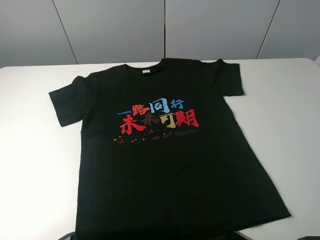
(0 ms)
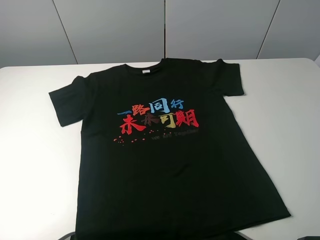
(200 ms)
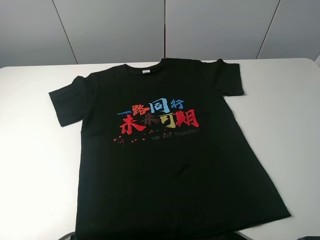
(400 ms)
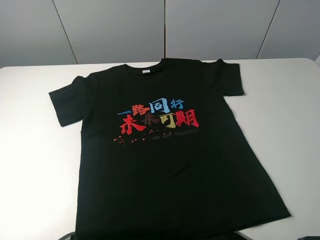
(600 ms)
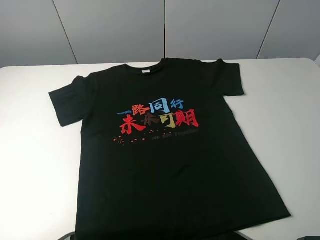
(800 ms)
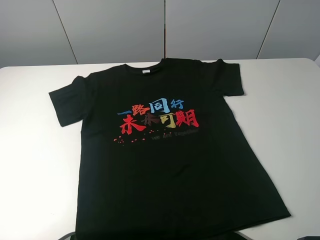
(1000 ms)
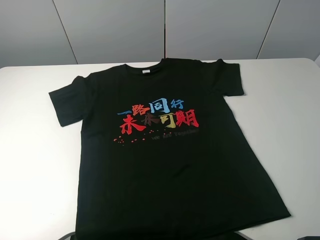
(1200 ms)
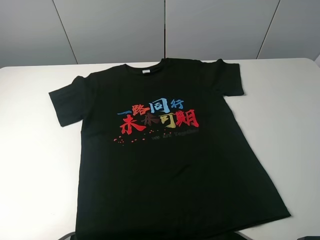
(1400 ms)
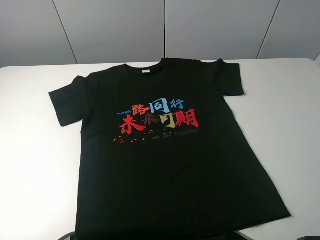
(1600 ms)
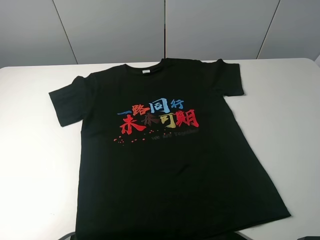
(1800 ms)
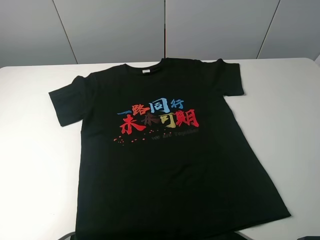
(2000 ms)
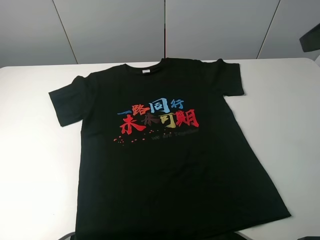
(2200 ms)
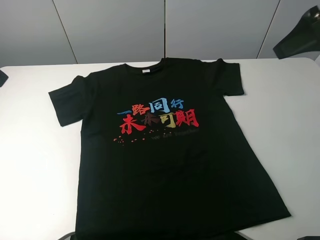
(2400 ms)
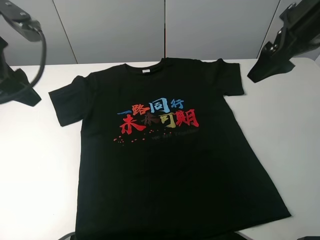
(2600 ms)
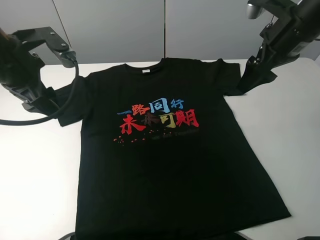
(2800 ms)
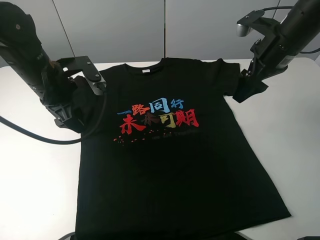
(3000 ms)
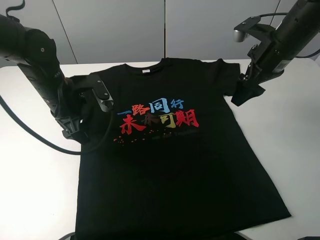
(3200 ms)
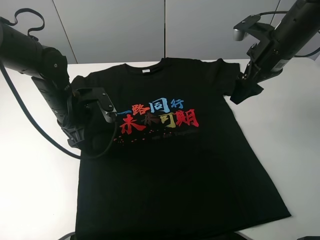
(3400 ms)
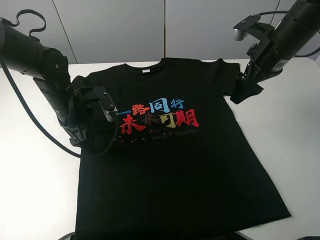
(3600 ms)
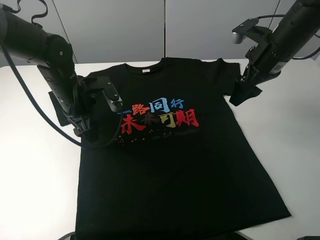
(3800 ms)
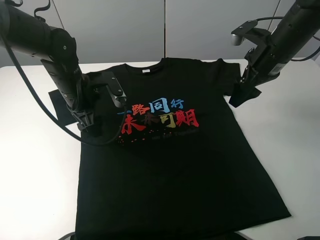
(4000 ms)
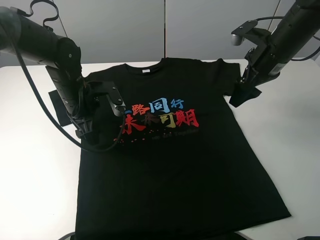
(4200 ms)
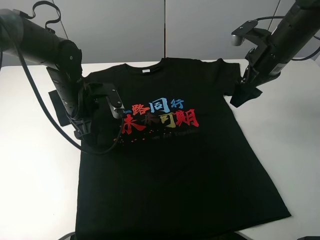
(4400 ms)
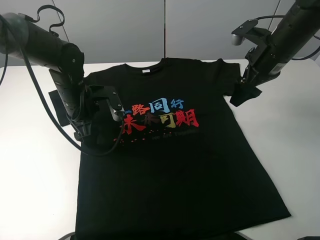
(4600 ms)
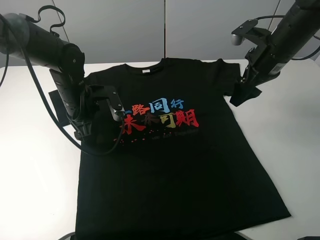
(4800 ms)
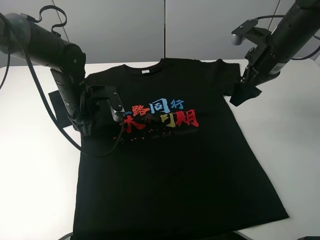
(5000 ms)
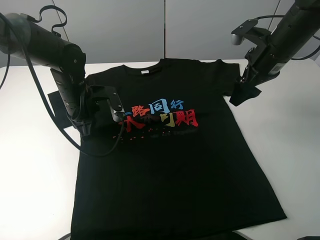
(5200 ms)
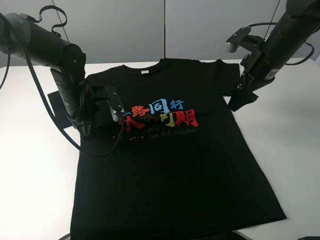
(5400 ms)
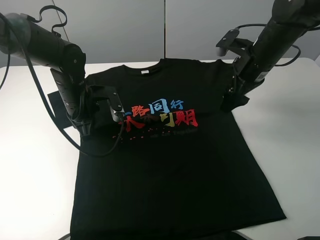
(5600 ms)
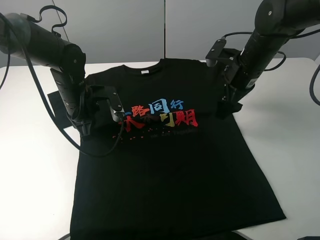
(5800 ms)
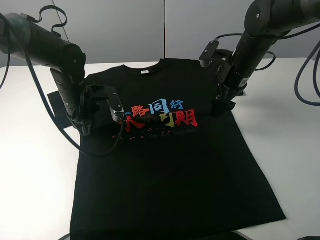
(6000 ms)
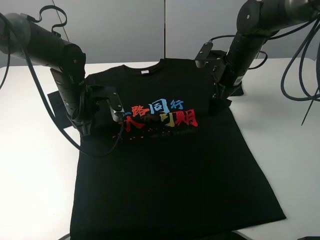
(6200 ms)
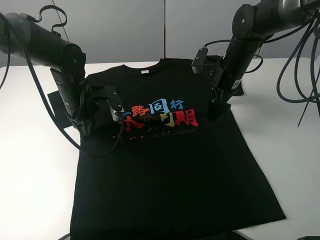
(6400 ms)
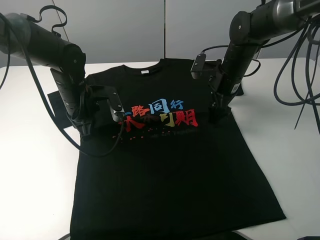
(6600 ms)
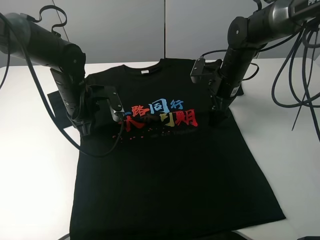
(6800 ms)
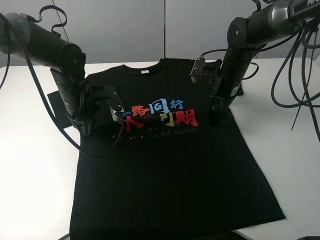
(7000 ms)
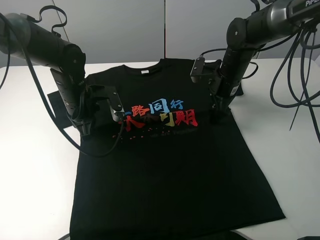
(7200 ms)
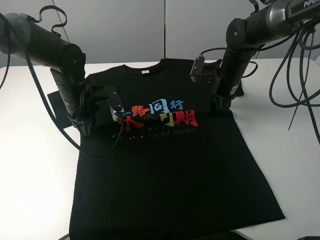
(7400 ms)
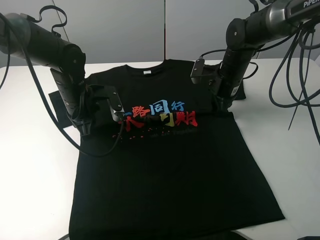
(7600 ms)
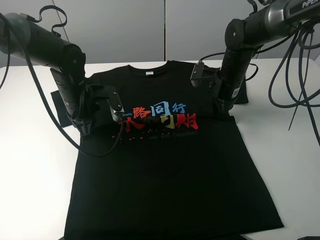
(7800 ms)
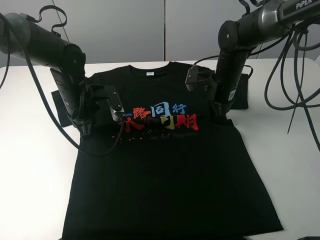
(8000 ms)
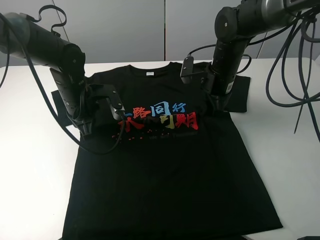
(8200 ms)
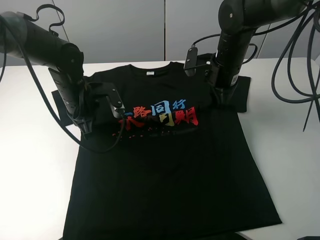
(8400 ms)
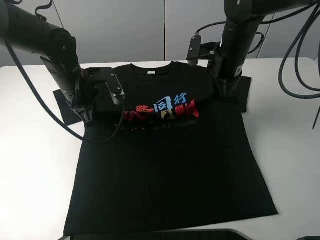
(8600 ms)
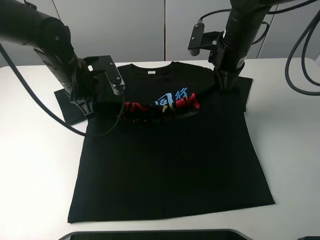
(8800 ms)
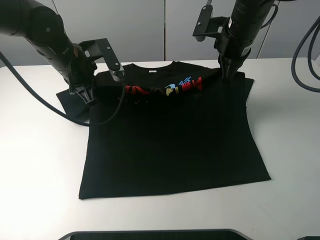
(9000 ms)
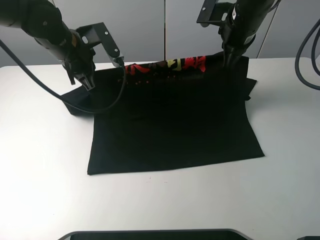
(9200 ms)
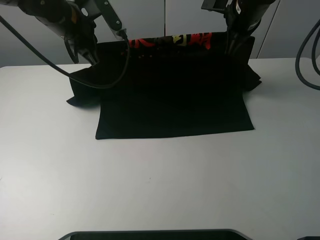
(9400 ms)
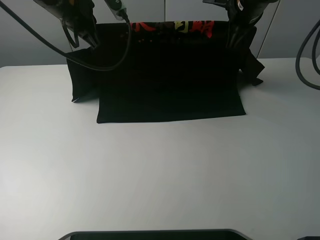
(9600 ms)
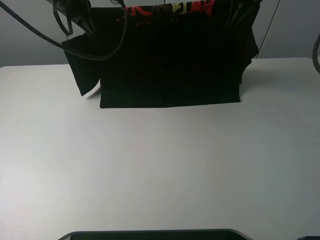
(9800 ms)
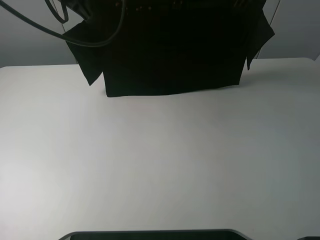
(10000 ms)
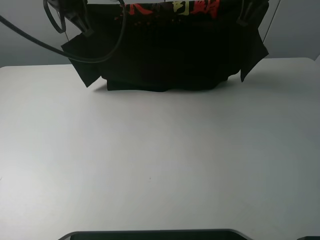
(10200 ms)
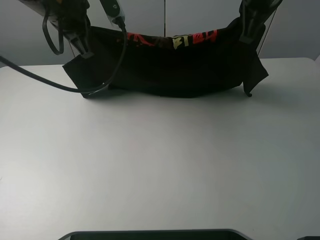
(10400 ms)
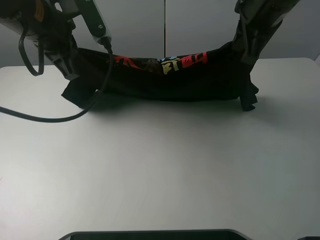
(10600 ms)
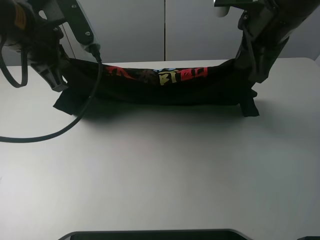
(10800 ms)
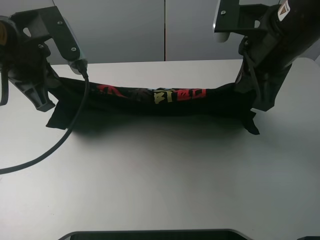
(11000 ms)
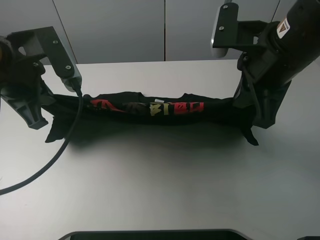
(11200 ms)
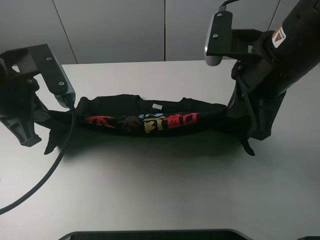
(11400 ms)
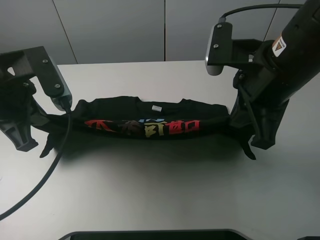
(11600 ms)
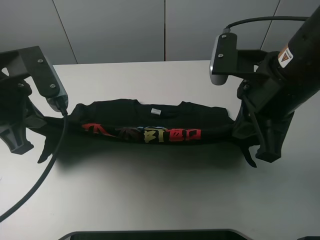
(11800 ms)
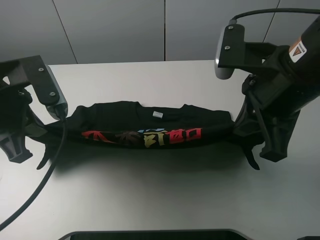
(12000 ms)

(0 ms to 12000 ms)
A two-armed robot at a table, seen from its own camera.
Task of the whole recording: fold the clothes on the table.
Step, 0 ms - 7600 ms: Lift the black T-shirt with the left gripper.
1600 ms - 3000 ms: The right gripper goes roughly 30 cm forward; the left gripper heads forward, to the right and downward, covering about 35 cm.
3000 ms - 4400 ms: The left gripper shifts approximately 5 cm downward.
4400 ms - 6000 ms: The right gripper shifts about 5 cm downward, while the left gripper closes.
6000 ms - 7600 ms: The right gripper closes its fingers.
7600 ms - 9000 ms: Both grippers move upward, roughly 10 cm.
9000 ms - 10400 ms: The two grippers go about 10 cm upward.
10400 ms - 12000 ms: The left gripper goes some 15 cm backward and to the left; the right gripper goes roughly 15 cm backward.

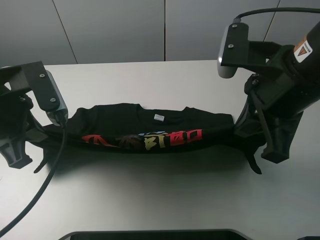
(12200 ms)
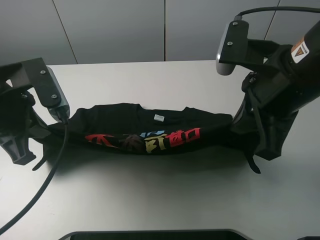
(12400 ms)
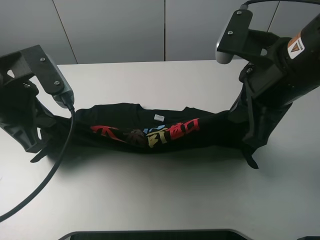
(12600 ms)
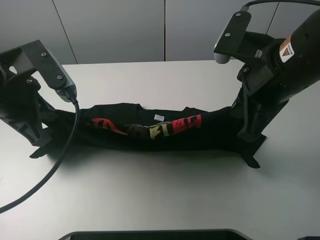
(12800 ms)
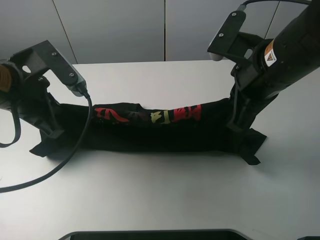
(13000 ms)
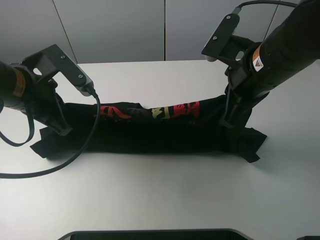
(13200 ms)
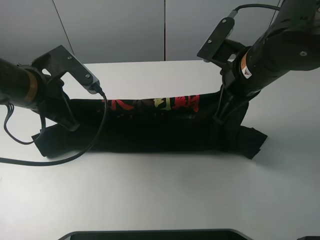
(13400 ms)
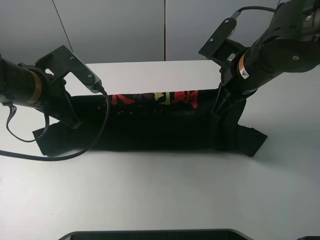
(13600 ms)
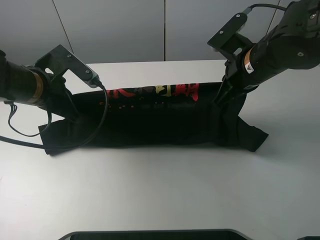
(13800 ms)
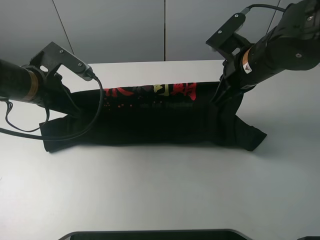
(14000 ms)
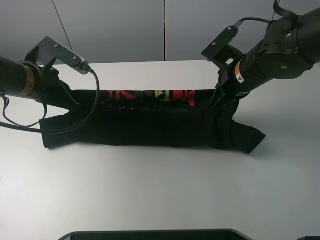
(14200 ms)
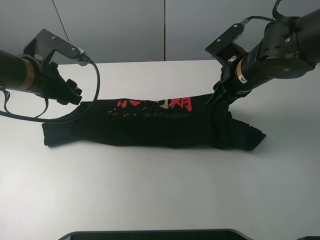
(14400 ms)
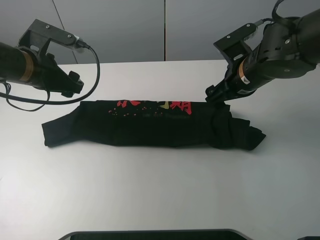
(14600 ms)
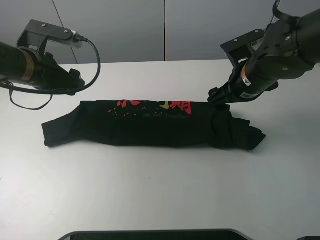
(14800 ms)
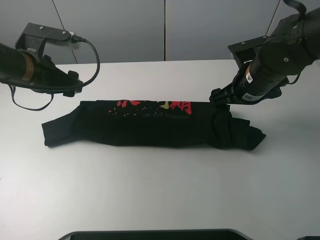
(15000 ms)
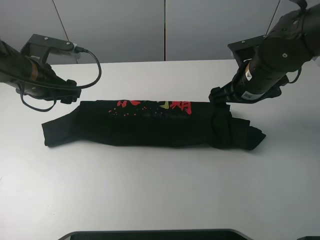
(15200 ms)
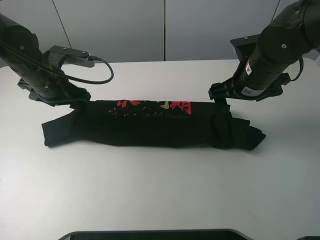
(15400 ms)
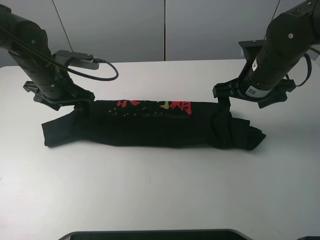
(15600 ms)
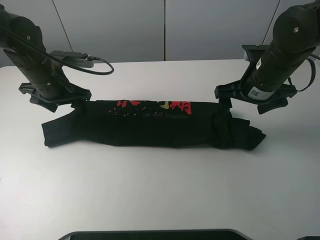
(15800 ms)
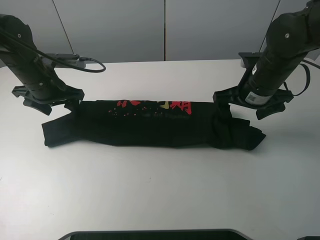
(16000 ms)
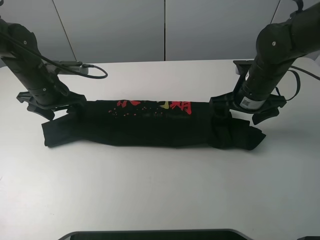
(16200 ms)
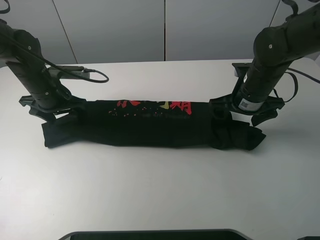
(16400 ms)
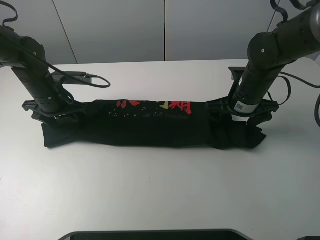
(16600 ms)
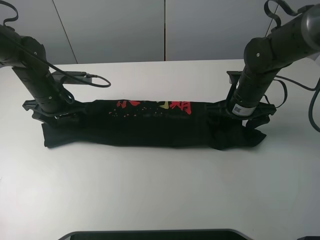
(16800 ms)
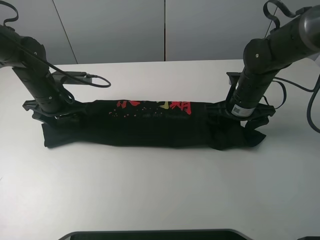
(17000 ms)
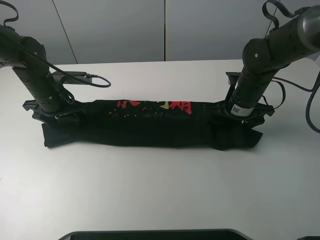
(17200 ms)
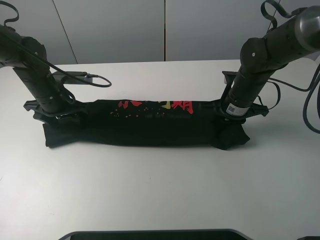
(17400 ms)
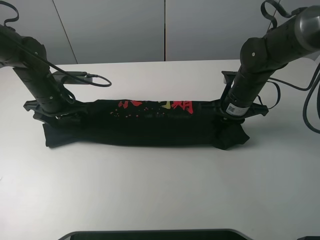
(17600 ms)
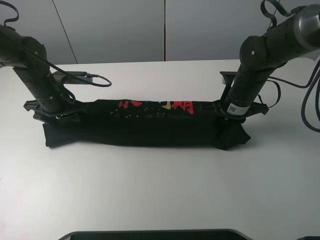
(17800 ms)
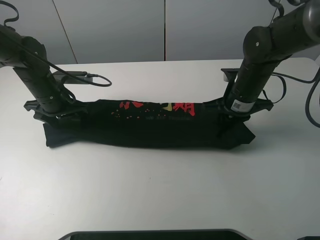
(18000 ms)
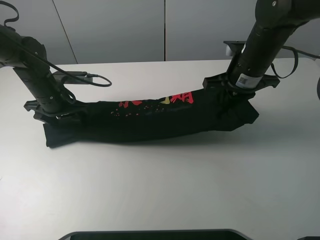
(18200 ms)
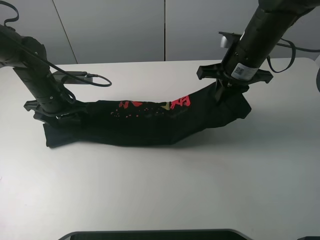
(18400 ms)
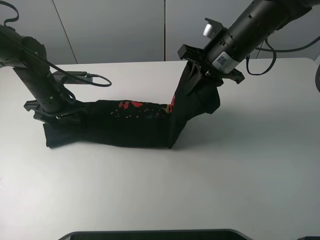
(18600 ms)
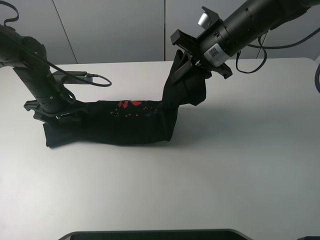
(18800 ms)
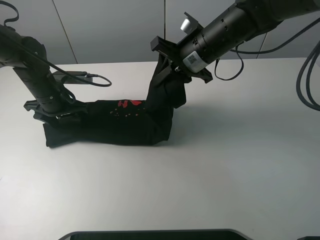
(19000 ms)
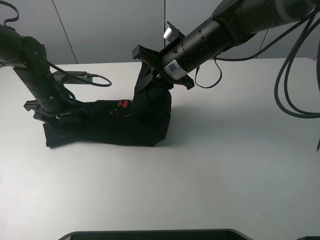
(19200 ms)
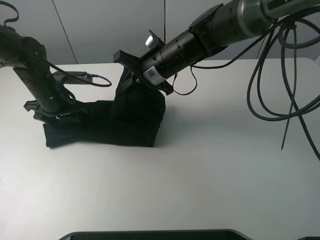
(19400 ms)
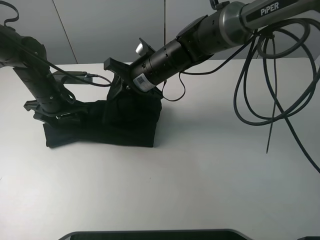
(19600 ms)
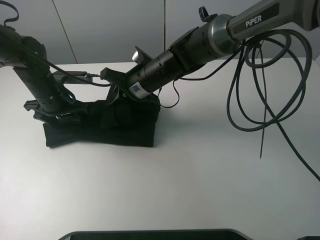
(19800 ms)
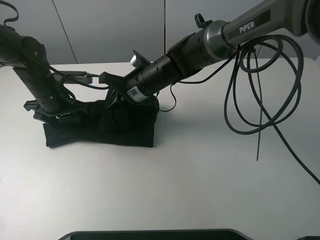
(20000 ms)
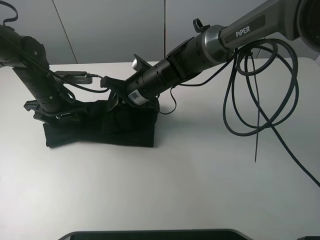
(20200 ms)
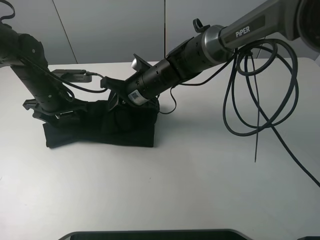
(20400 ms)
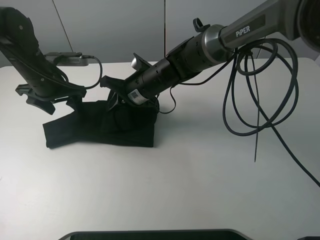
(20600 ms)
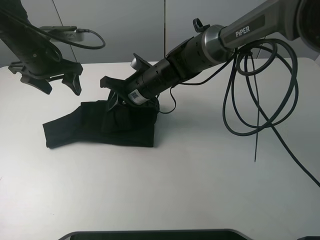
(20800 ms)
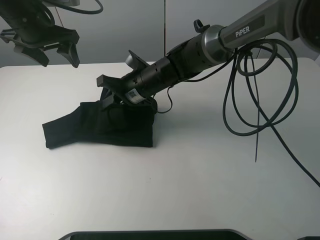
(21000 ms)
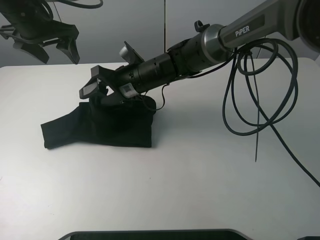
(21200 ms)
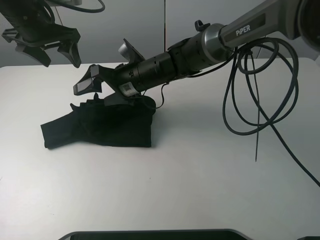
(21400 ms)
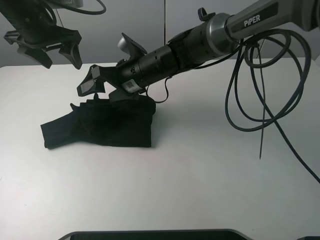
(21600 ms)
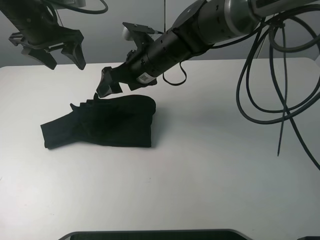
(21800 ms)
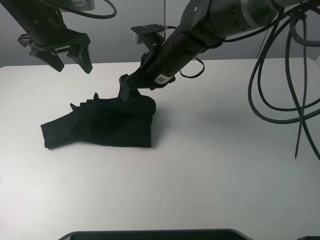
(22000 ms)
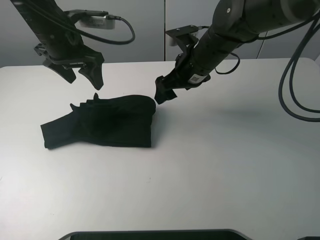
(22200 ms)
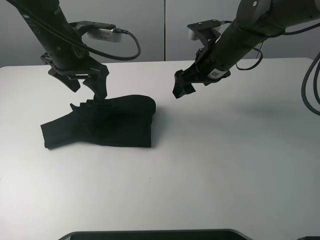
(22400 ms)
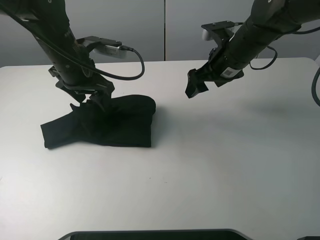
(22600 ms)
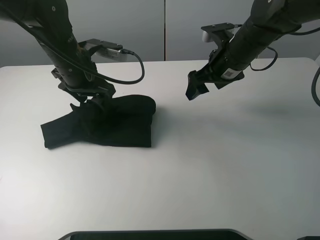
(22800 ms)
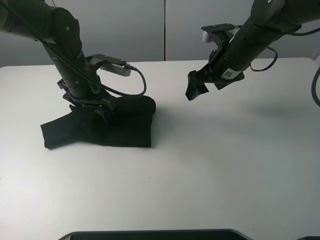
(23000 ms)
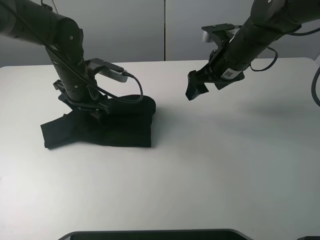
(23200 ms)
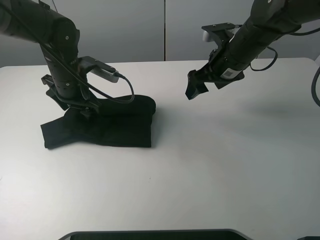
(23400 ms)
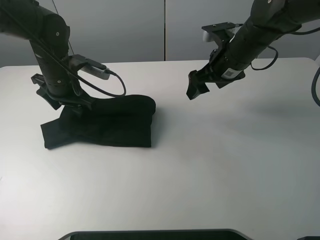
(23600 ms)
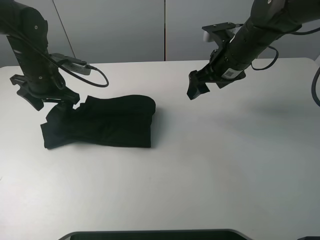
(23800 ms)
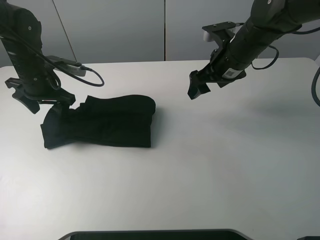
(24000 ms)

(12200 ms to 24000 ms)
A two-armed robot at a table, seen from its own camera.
Task of the whole recording: fold the clothes on the table.
Step, 12200 ms - 15000 ms: Fold the black T-shirt downward with the left gripper.
Step, 15400 ms - 17600 ms: Grasp the black T-shirt with the right gripper.
Step, 17800 ms - 21600 ms: Fold the black T-shirt from right to left with right gripper.
12200 ms - 13600 ms: The left gripper shifts about 5 cm forward. Meanwhile the right gripper moves forward and downward, some 10 cm.
13600 ms - 15200 ms: The right gripper opens its fingers, while the left gripper travels forward by about 5 cm, and opens.
15200 ms - 16600 ms: The two grippers go roughly 5 cm downward.
16600 ms - 18200 ms: The right gripper moves upward, roughly 5 cm, and closes.
18200 ms - 19600 ms: The right gripper is displaced to the left by roughly 20 cm.
19600 ms - 21000 ms: The left gripper moves upward, about 15 cm.
21000 ms - 22600 ms: The right gripper travels to the right by approximately 20 cm, and opens up. The left gripper goes approximately 10 cm to the right, downward and backward.
22600 ms - 24000 ms: The left gripper moves to the left, some 10 cm.
